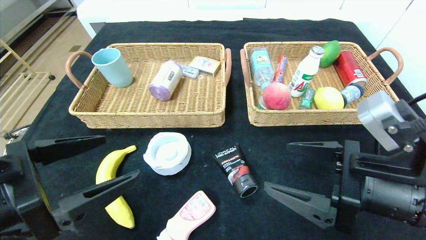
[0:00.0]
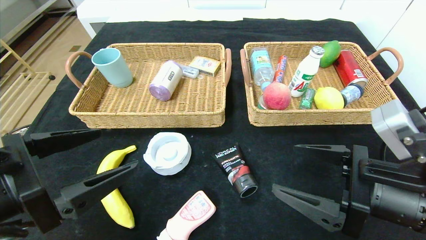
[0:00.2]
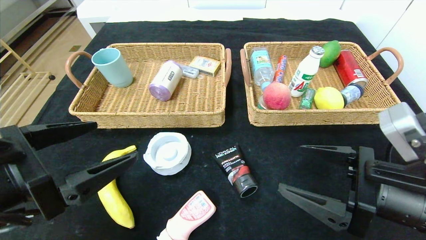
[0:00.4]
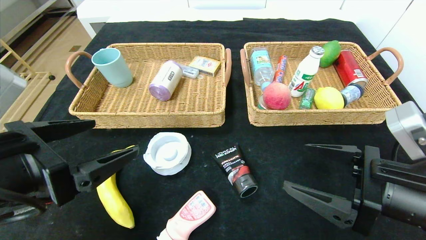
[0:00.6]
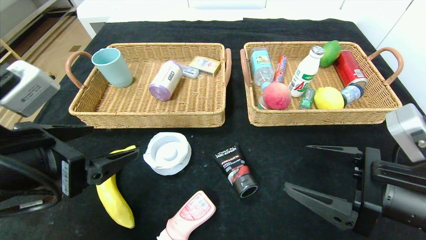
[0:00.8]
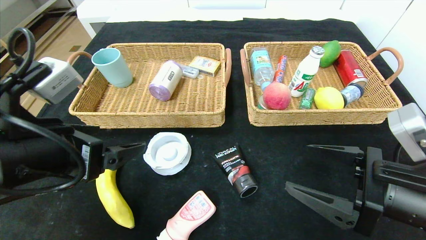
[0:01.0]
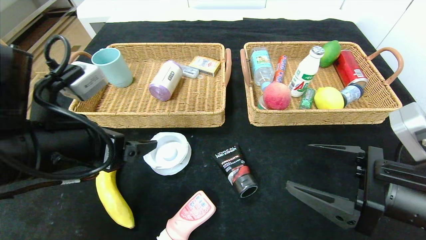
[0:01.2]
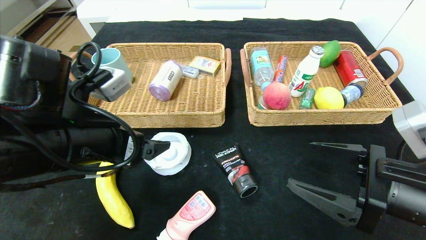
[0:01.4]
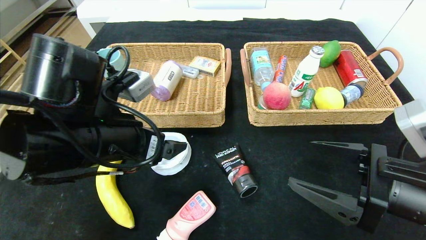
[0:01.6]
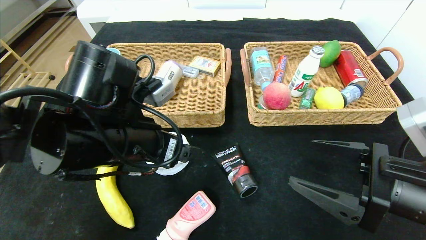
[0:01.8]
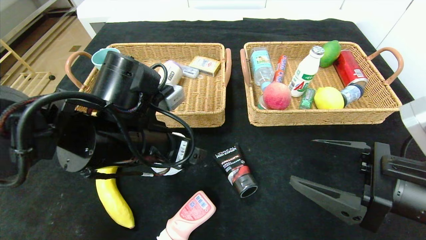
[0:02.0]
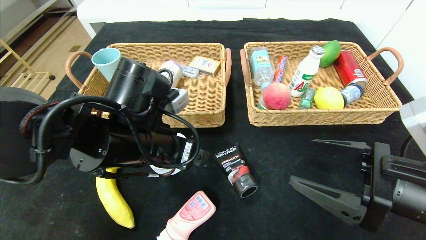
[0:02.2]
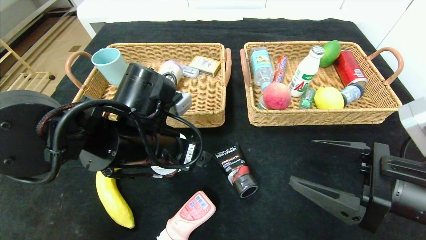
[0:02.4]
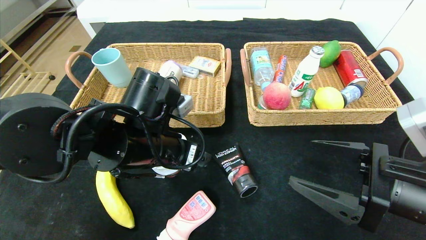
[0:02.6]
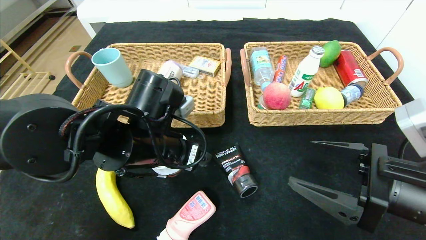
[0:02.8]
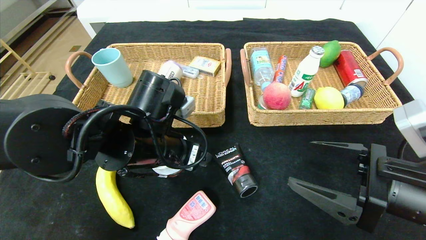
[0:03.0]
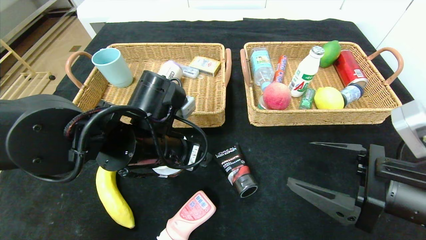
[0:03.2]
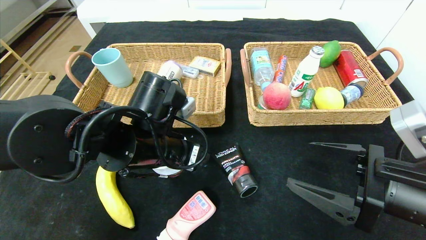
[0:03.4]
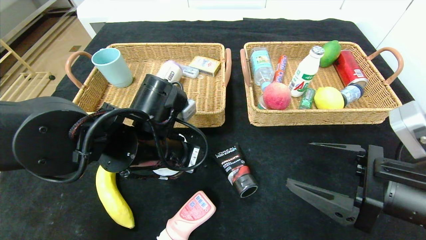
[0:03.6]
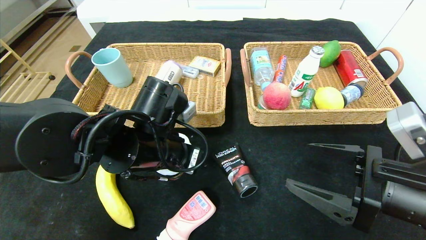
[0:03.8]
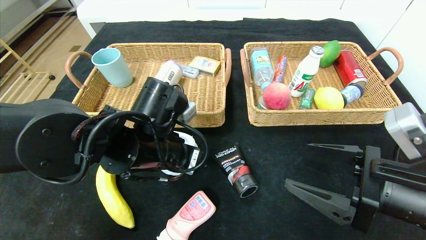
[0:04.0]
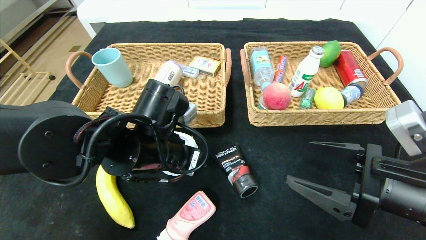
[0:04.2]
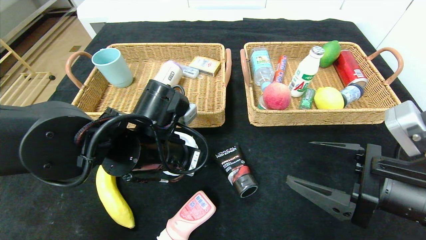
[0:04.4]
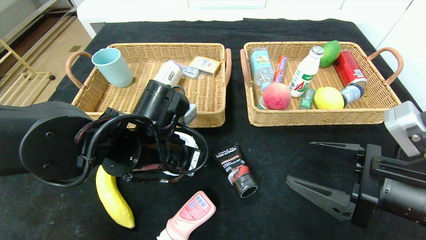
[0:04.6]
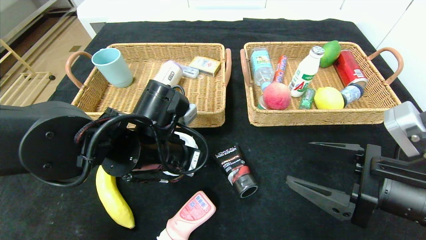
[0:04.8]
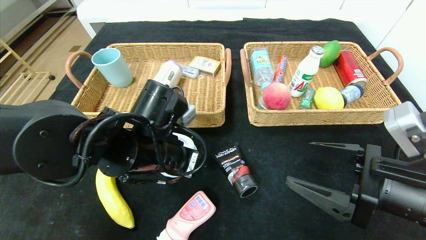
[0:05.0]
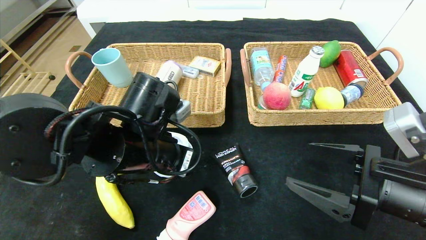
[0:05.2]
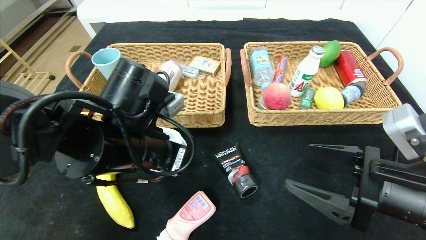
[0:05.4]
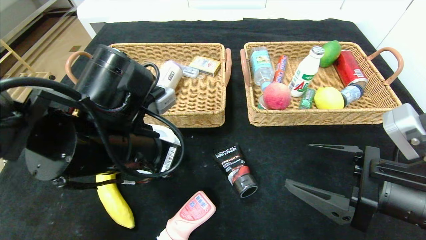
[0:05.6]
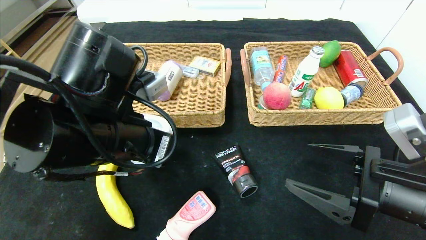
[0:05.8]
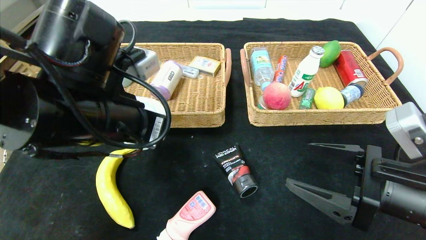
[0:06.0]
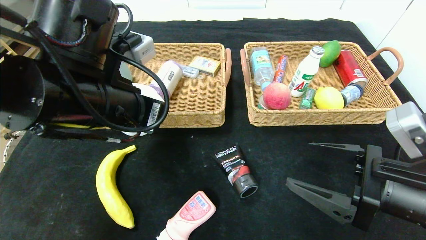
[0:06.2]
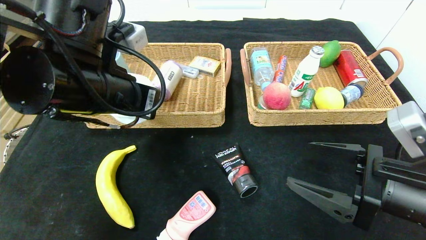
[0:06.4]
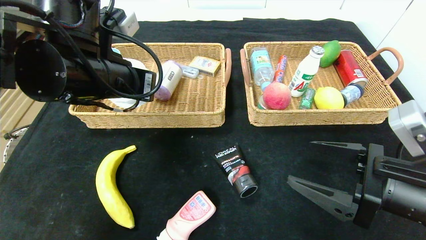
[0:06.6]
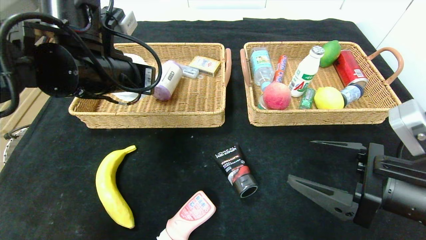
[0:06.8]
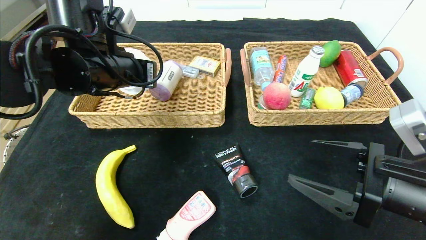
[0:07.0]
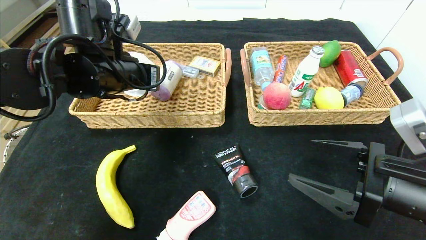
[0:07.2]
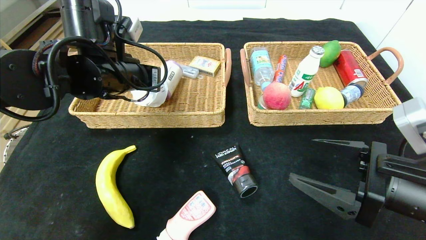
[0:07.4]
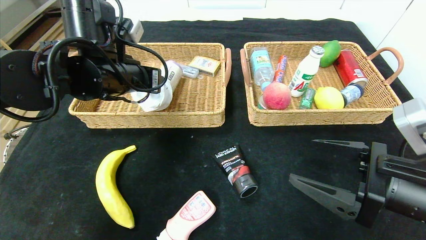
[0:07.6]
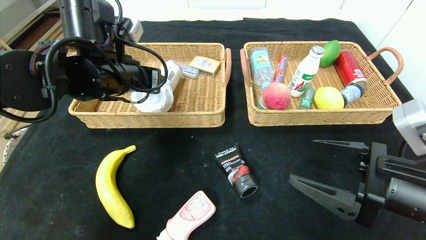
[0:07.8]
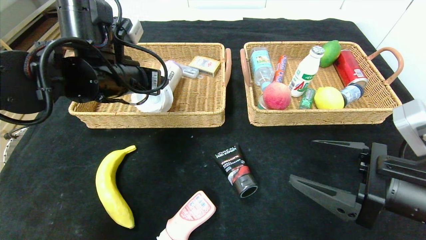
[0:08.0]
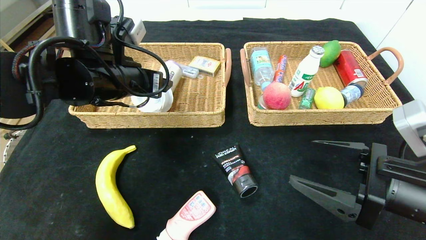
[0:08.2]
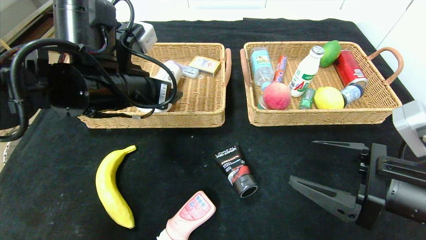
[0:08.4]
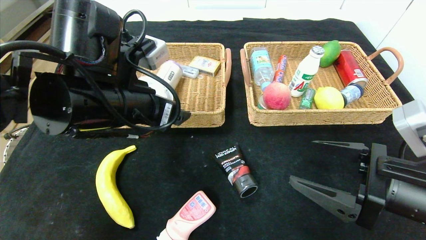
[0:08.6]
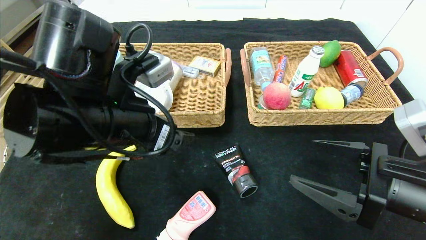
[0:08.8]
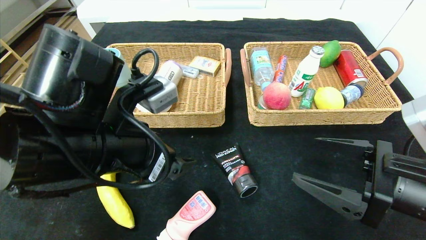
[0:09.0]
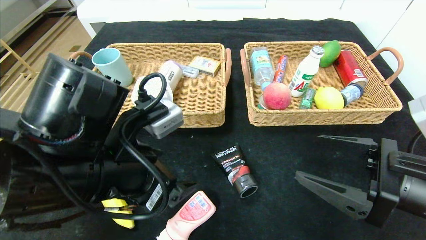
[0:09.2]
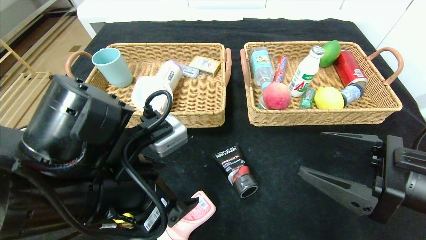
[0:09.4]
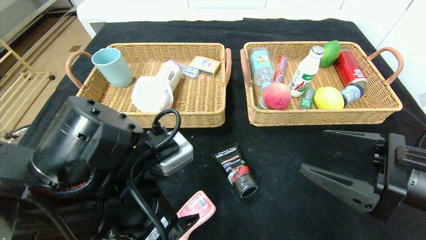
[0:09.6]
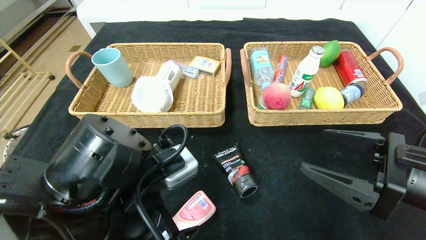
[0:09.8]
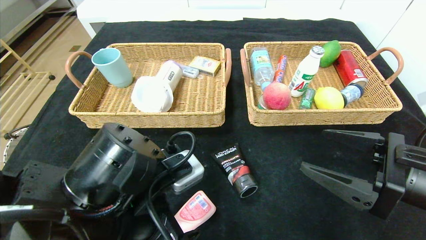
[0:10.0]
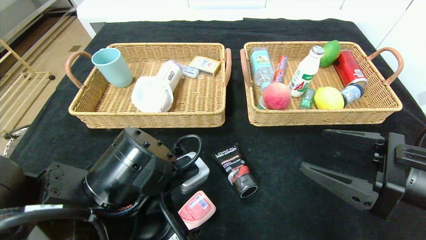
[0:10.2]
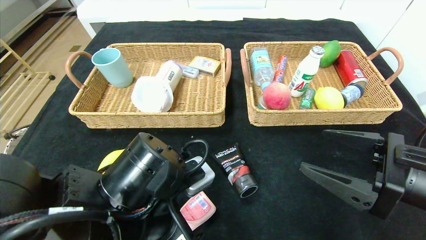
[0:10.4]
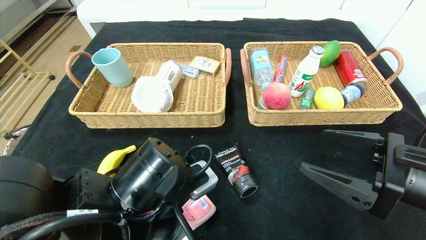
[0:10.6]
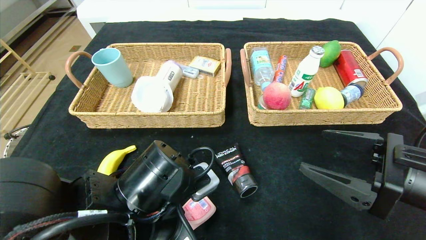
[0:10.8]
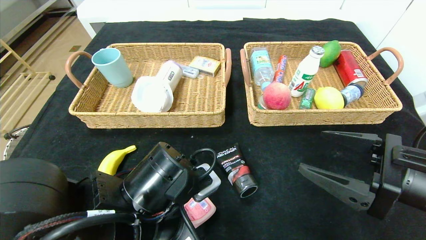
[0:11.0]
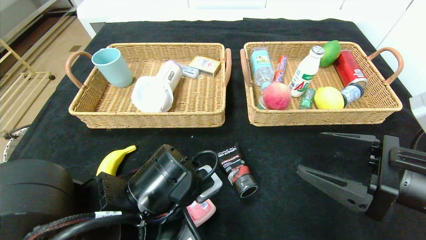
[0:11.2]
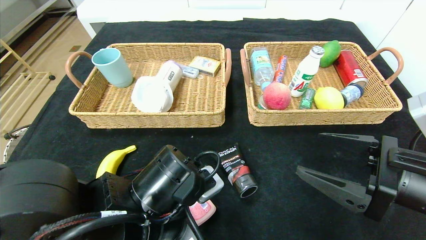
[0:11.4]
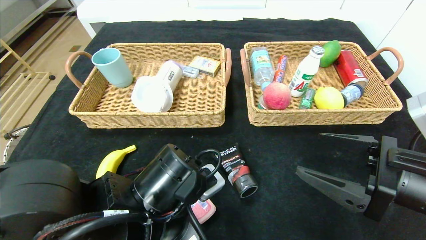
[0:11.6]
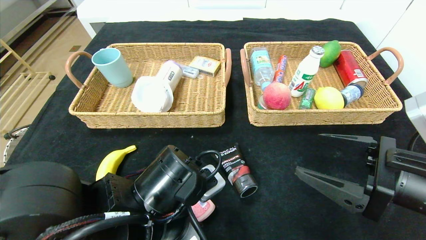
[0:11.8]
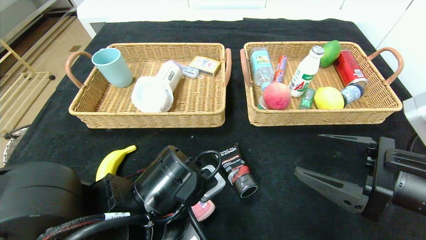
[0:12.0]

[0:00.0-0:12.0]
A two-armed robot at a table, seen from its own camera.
Step, 0:00.0 to 0:09.0: Pick up the tape and put it in the left basket.
0:00.0 to 0:01.6: The left gripper goes some 10 cm forward and to the right.
0:01.6 to 0:03.0: The left gripper ends up about 10 cm from where it was.
0:03.0 to 0:04.4: The left gripper closes its fingers.
0:04.4 to 0:06.0: The left gripper shifts approximately 10 cm upward.
0:06.0 to 0:07.6: The left gripper goes about 10 cm forward, and opens up.
0:07.6 to 0:09.0: The left gripper is displaced backward by about 15 cm, and opens.
0:09.0 to 0:10.4: The left gripper travels downward by about 10 cm.
0:10.4 to 0:12.0: The left gripper closes.

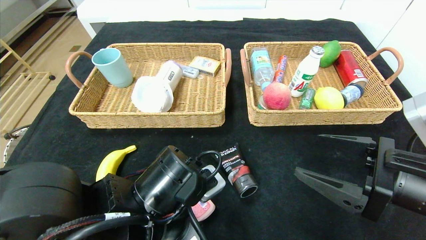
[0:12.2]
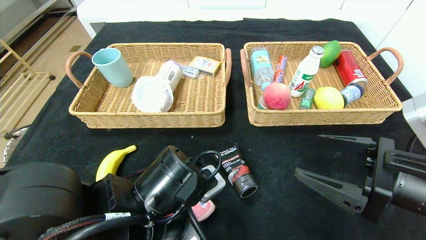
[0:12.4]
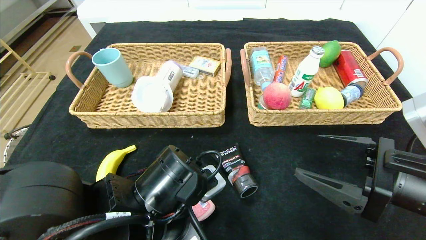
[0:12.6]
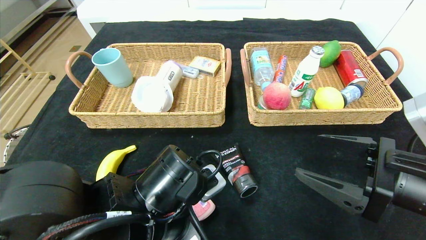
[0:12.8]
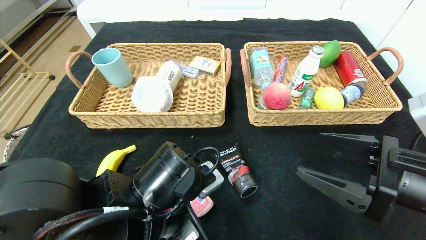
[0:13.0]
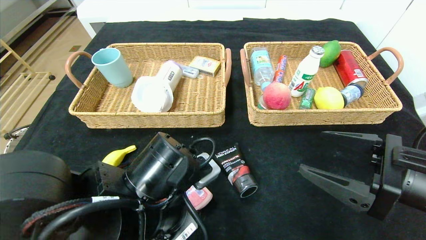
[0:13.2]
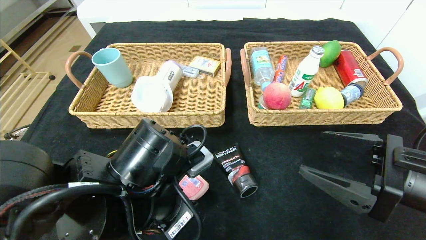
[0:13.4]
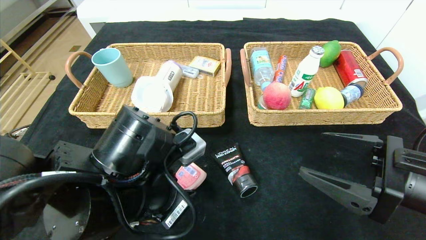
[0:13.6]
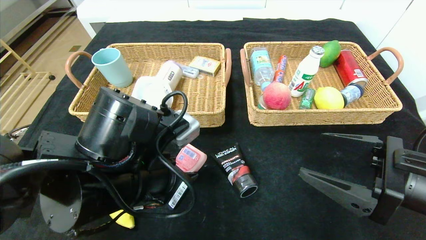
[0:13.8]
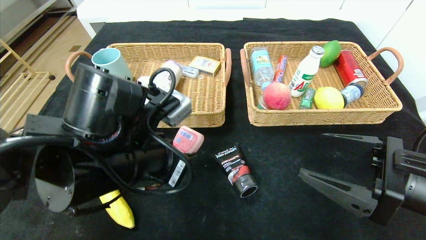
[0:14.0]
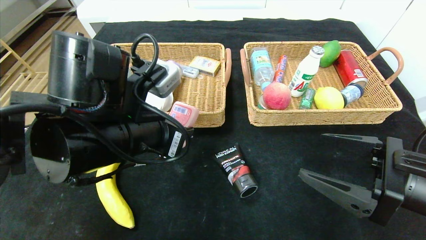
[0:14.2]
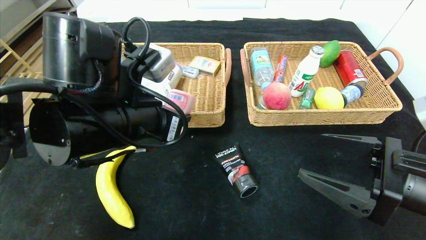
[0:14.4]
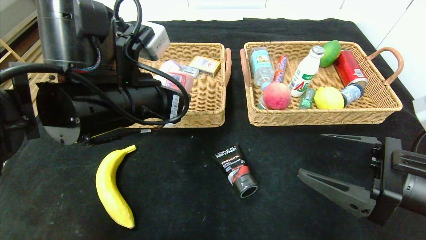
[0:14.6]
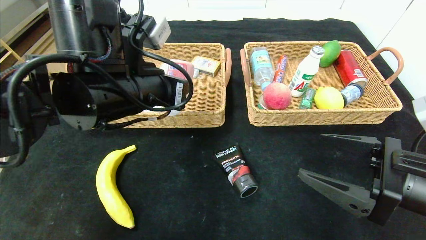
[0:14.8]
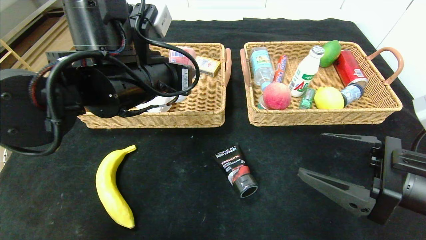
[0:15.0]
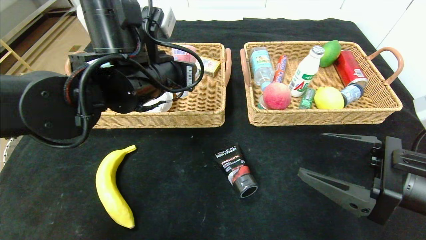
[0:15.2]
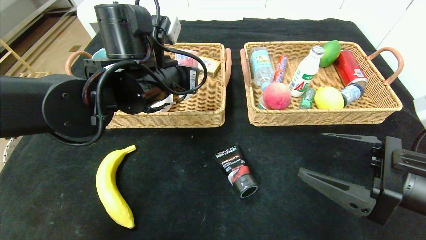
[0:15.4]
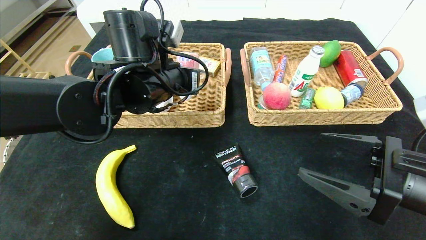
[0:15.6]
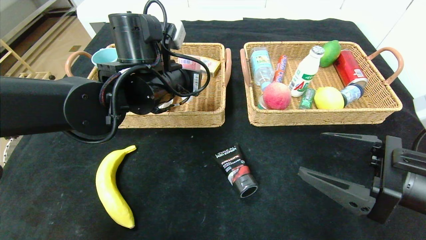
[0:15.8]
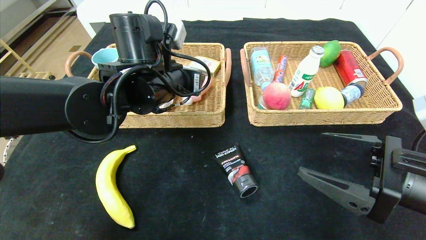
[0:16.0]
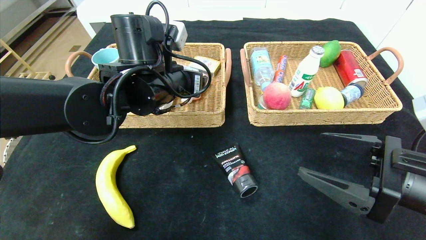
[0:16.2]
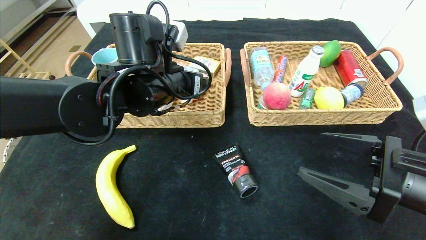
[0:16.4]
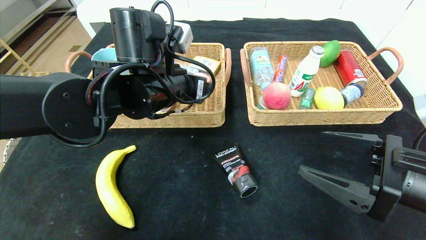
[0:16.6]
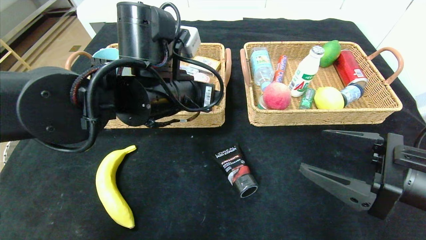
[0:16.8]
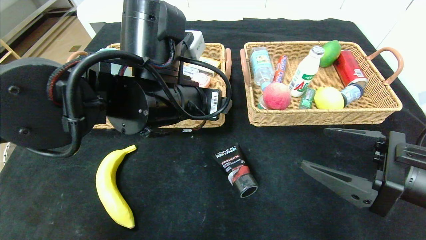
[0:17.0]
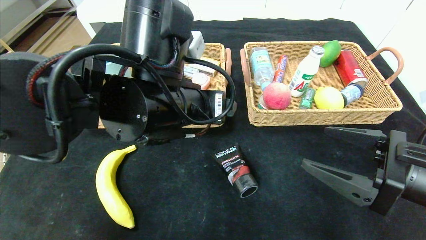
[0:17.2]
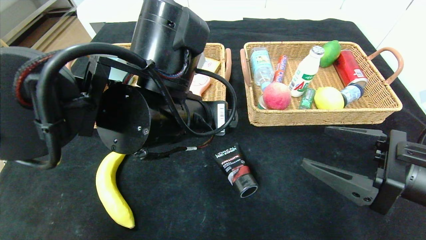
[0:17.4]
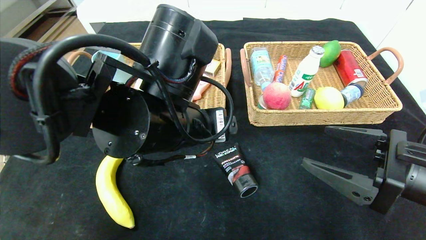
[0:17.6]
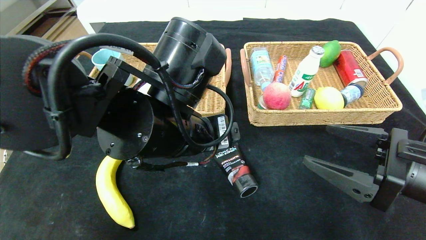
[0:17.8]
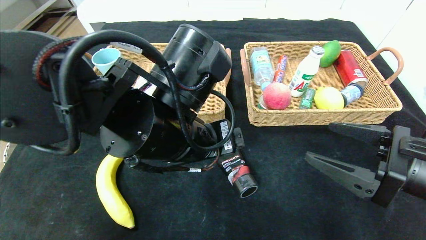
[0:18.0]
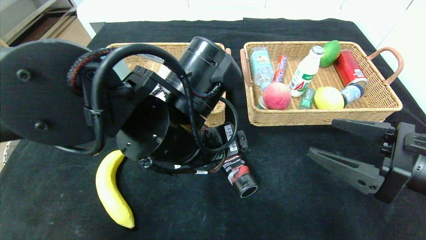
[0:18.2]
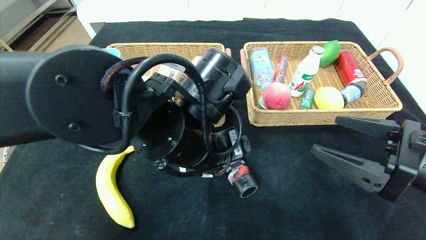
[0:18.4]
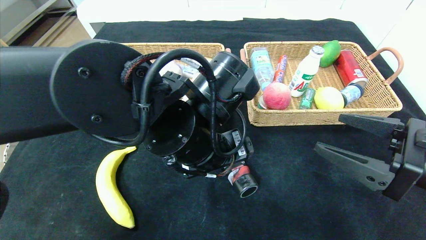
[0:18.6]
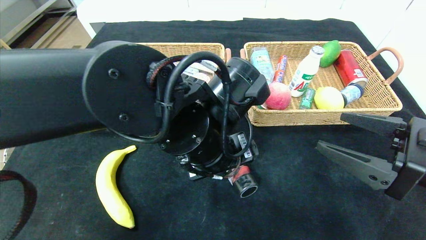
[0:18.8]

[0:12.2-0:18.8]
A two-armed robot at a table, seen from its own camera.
Step, 0:12.2 to 0:18.0: Pick up the washing liquid and put it in the left basket.
0:12.2 to 0:13.8: The left gripper shifts roughly 5 cm upward.
0:13.8 to 0:15.4: The left gripper shifts approximately 15 cm forward and upward.
0:15.4 to 0:17.2: The left gripper heads backward, covering about 10 cm, and opens.
0:17.2 to 0:18.8: The left gripper shifts by roughly 5 cm.
